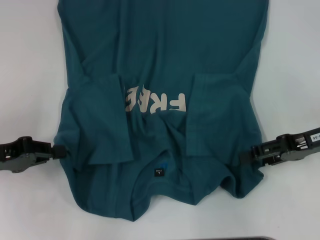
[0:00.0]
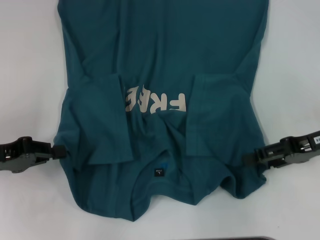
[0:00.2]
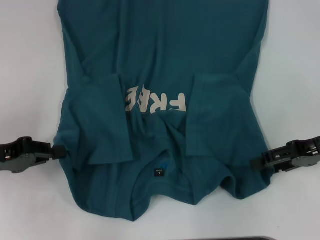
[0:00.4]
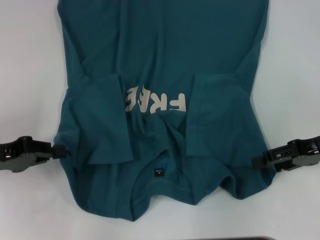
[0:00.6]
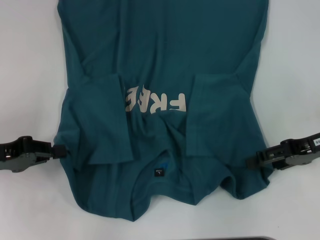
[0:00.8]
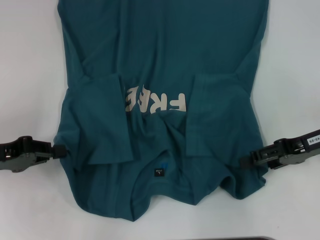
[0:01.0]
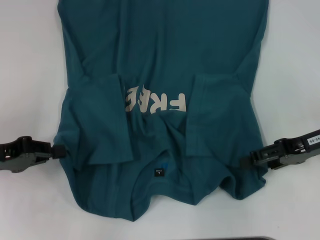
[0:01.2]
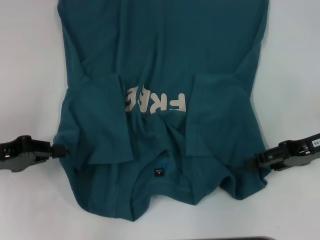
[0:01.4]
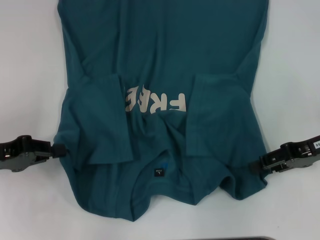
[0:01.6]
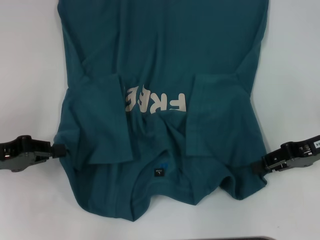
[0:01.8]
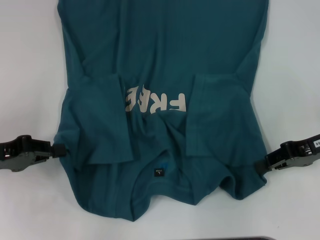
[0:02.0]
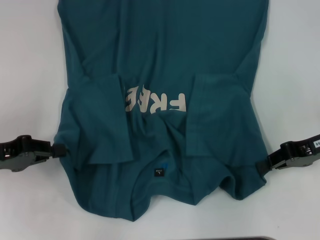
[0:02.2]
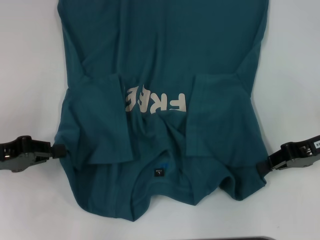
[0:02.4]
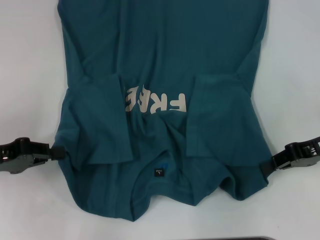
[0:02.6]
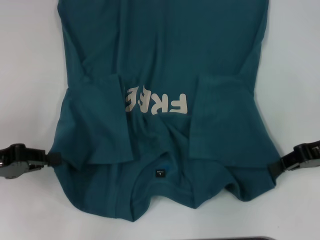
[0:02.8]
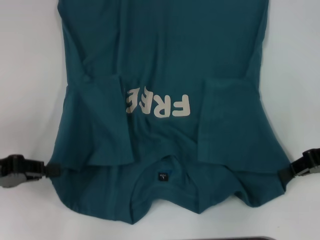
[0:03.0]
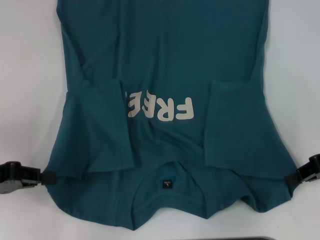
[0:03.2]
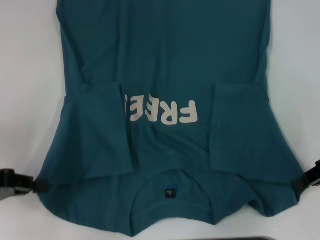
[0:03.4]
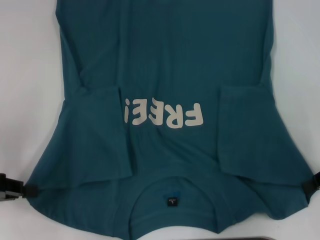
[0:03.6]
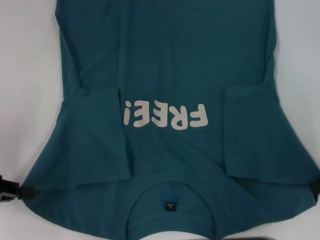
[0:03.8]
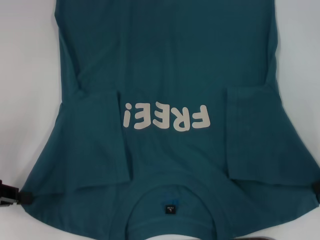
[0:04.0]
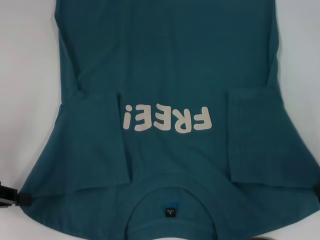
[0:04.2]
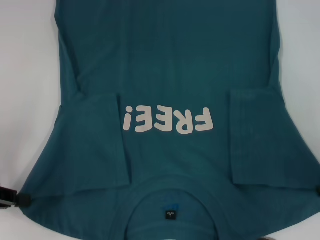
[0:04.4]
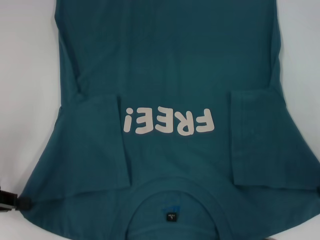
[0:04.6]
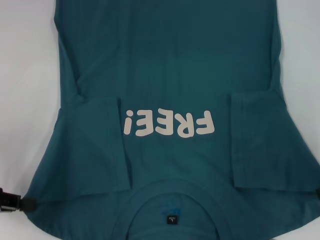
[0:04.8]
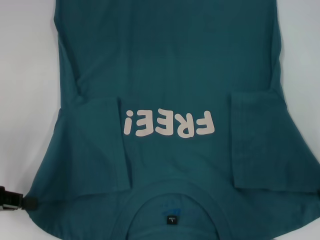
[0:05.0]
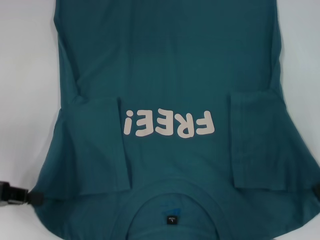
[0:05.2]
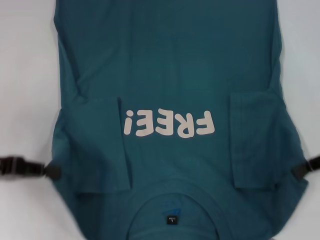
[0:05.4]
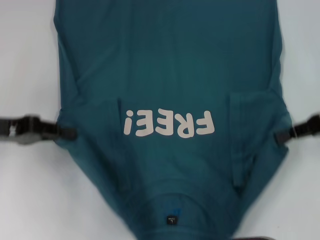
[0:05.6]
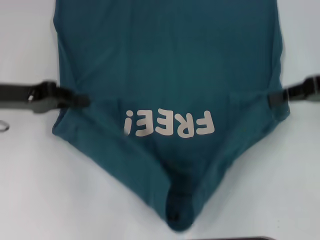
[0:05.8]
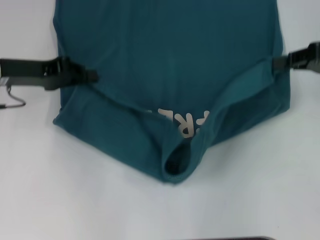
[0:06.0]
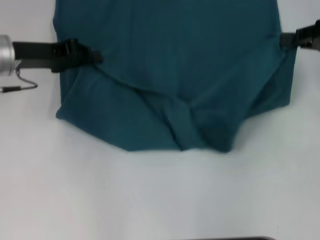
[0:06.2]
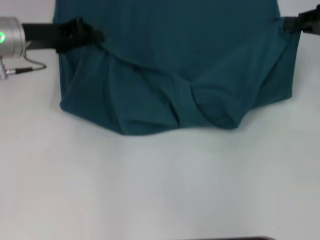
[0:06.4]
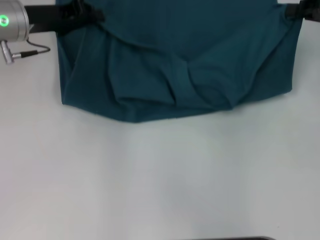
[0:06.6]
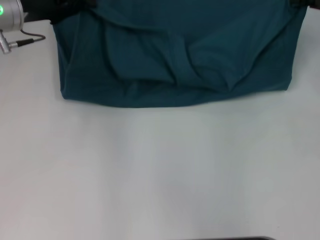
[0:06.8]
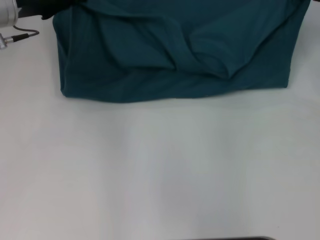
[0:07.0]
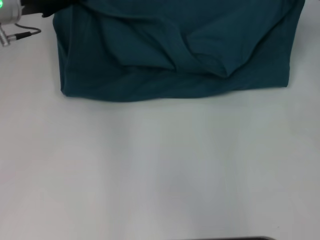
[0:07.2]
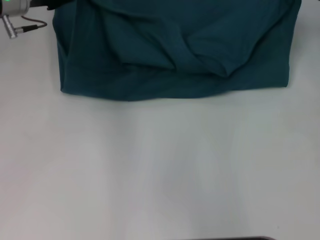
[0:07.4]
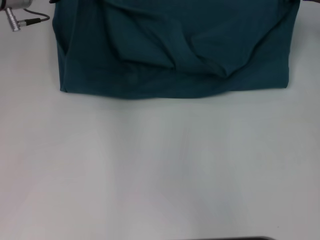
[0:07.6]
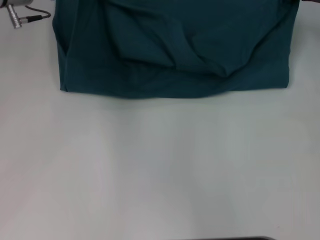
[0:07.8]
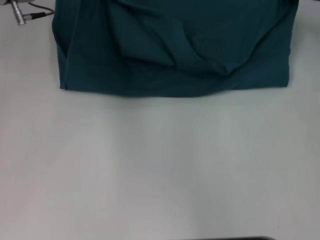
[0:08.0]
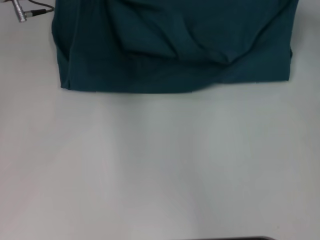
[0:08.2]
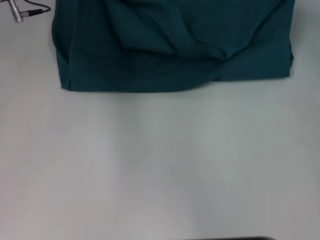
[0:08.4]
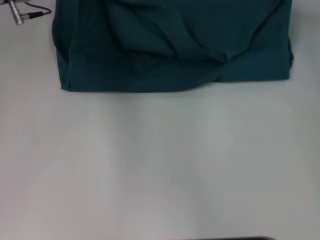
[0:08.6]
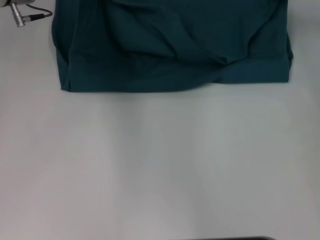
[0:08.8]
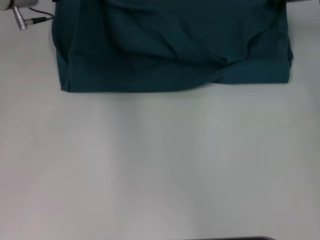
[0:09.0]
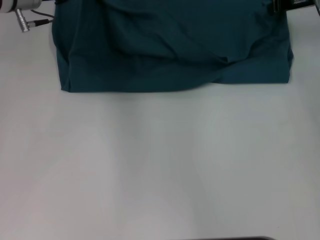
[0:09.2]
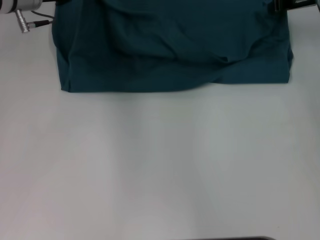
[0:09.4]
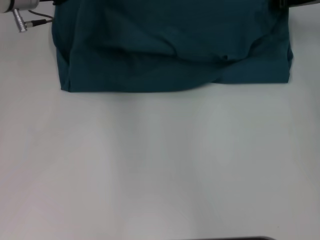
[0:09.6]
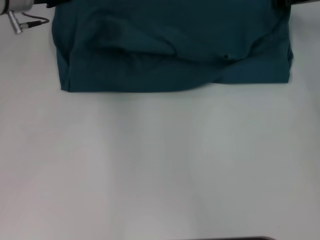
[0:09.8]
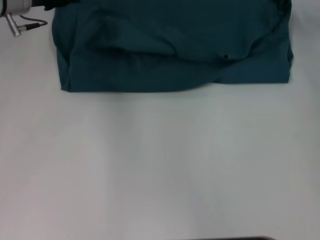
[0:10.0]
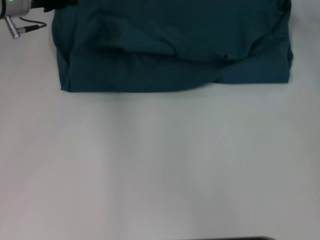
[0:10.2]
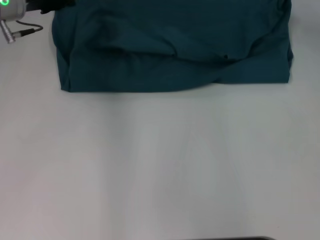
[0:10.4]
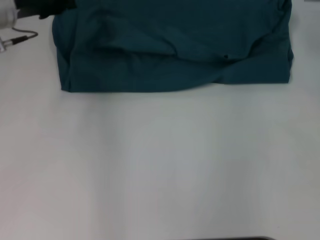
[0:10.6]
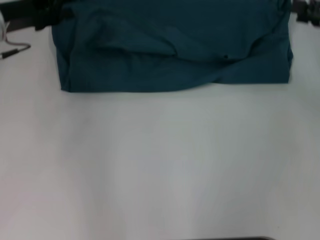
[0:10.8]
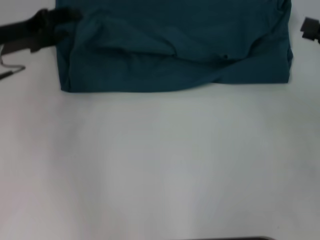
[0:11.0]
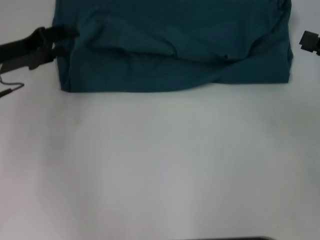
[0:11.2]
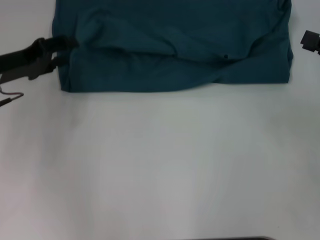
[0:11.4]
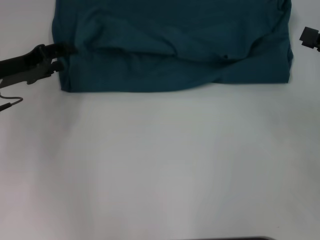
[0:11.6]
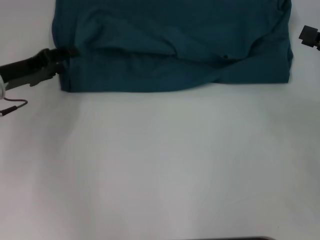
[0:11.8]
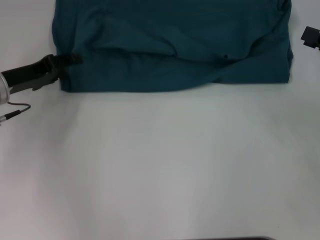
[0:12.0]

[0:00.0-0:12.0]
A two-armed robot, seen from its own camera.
Step, 0:00.0 to 0:02.4: Grab the bottom right corner with your right hand.
Step, 0:02.6 to 0:10.2: Fold the clothes to the left.
Step, 0:02.6 to 0:10.2: Fold the clothes to the right.
0:00.0 to 0:01.6: The grippers stay close to where they were, moving slightly.
0:01.6 to 0:03.0: The right gripper closes its fingers.
0:04.4 to 0:06.0: The right gripper travels forward and upward by approximately 10 cm; the left gripper travels forward and to the right by some 15 cm.
0:06.0 to 0:07.6: Both grippers move forward, about 10 cm.
0:07.6 to 0:09.0: The right gripper changes place by about 5 cm.
0:09.0 to 0:10.4: The left gripper opens up.
0:10.4 to 0:12.0: The right gripper shifts some 15 cm backward, downward and to the right. Meanwhile the left gripper travels backward and downward by about 10 cm.

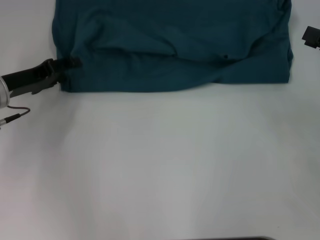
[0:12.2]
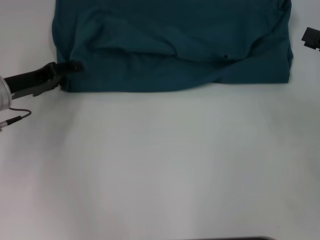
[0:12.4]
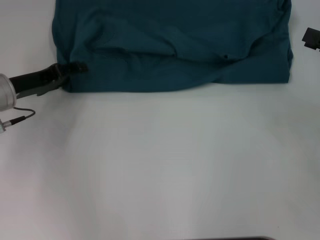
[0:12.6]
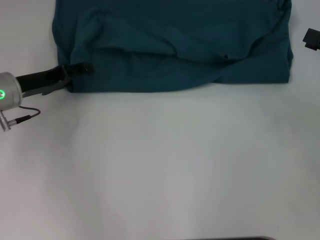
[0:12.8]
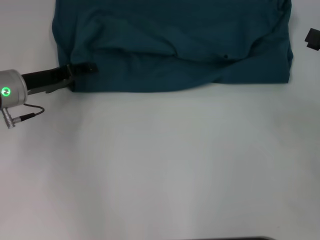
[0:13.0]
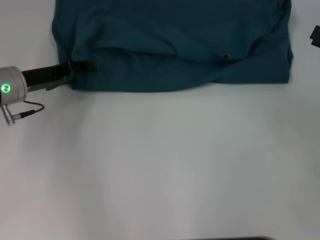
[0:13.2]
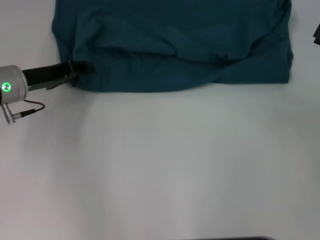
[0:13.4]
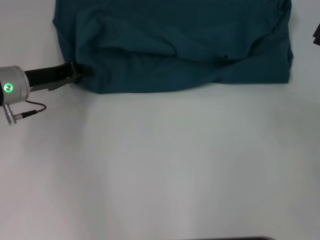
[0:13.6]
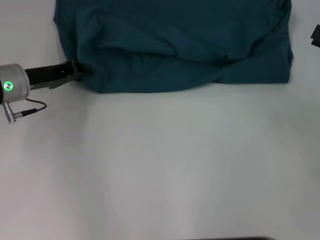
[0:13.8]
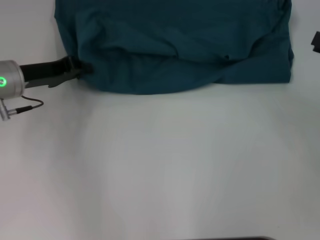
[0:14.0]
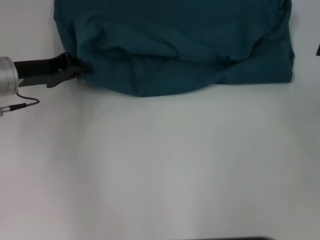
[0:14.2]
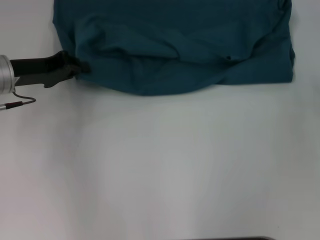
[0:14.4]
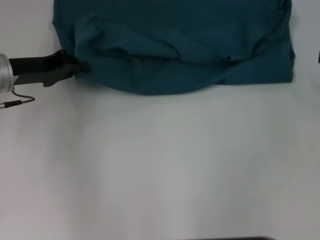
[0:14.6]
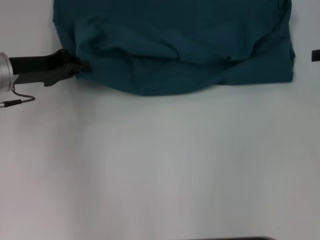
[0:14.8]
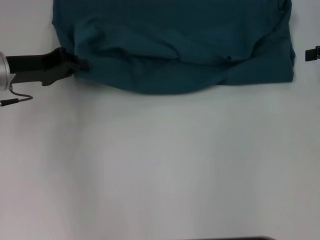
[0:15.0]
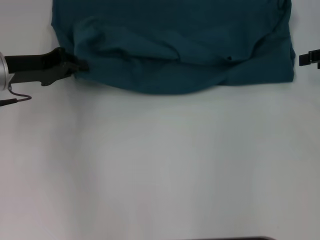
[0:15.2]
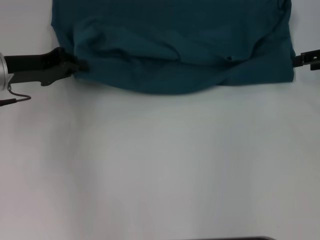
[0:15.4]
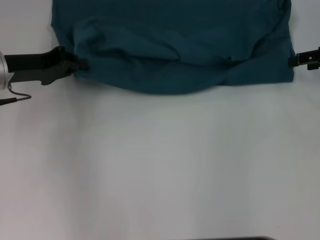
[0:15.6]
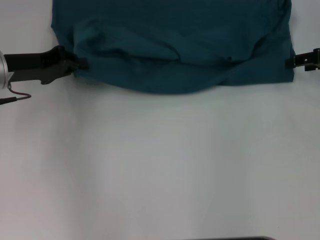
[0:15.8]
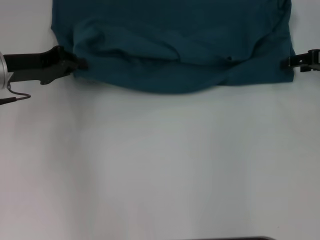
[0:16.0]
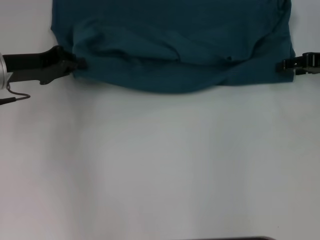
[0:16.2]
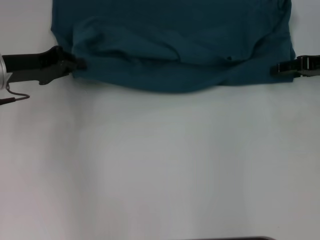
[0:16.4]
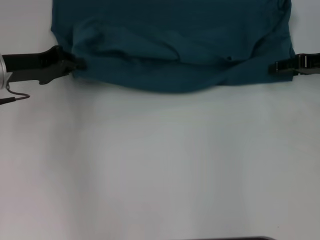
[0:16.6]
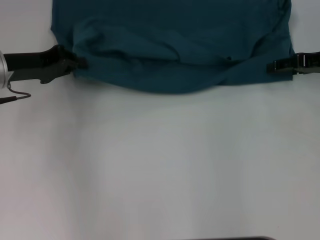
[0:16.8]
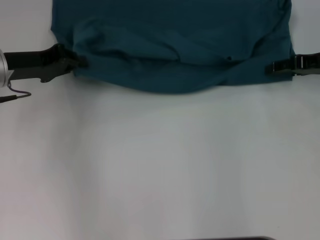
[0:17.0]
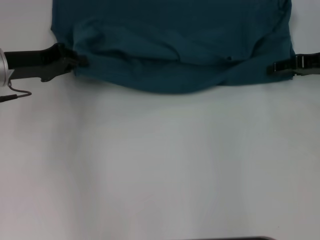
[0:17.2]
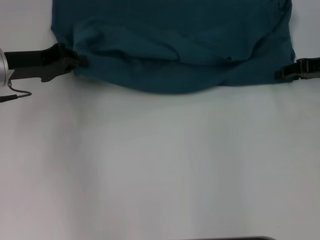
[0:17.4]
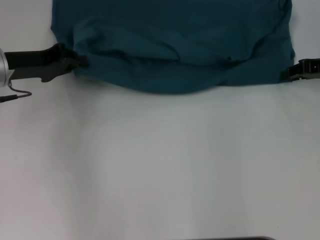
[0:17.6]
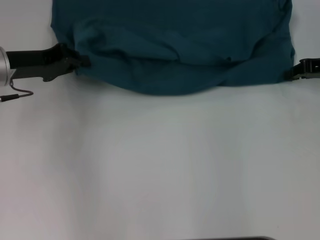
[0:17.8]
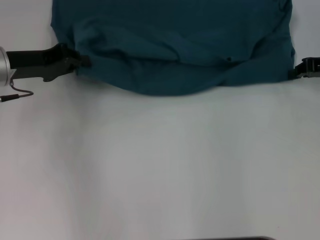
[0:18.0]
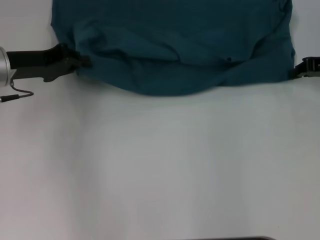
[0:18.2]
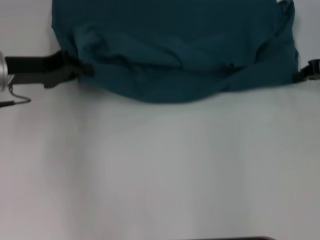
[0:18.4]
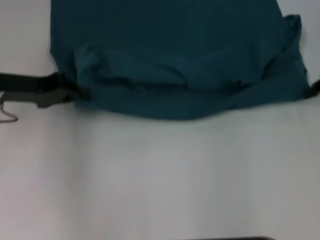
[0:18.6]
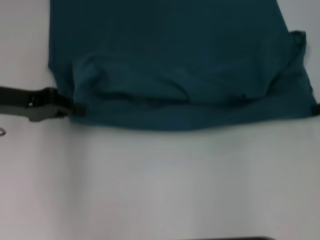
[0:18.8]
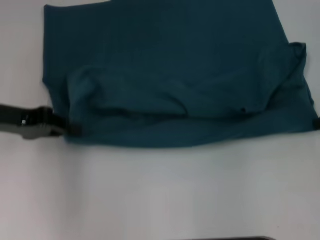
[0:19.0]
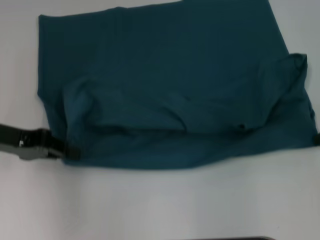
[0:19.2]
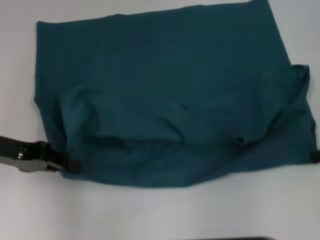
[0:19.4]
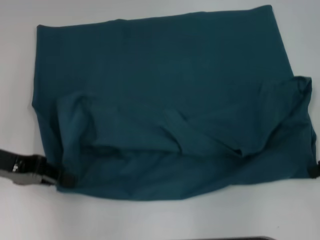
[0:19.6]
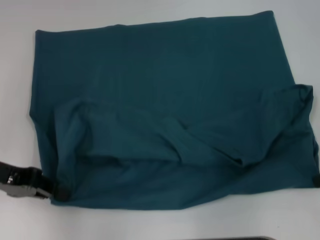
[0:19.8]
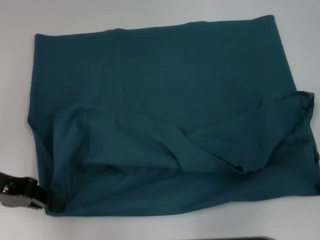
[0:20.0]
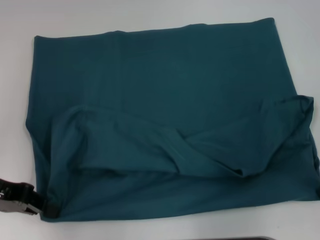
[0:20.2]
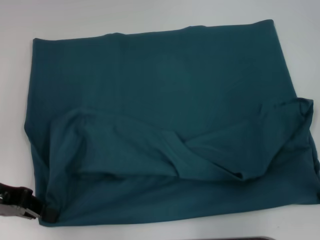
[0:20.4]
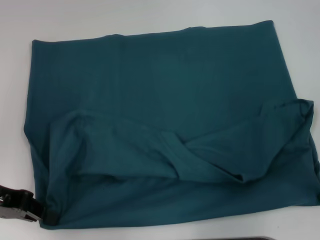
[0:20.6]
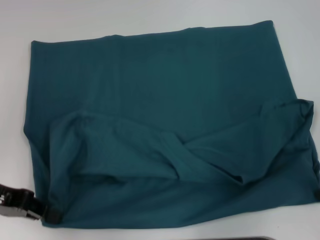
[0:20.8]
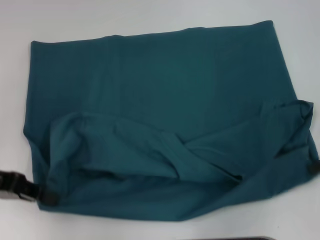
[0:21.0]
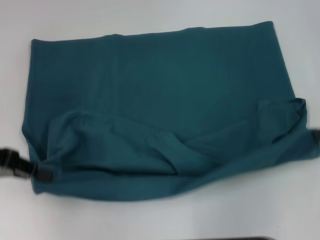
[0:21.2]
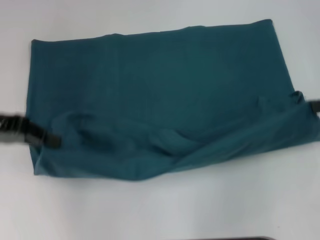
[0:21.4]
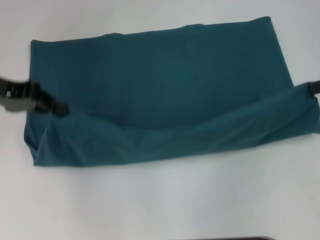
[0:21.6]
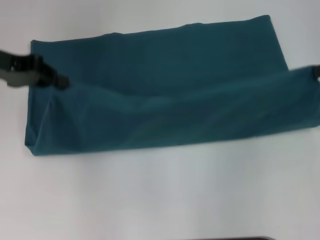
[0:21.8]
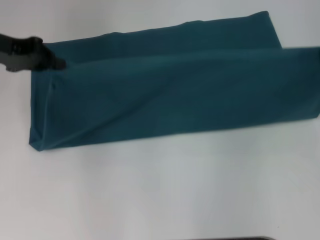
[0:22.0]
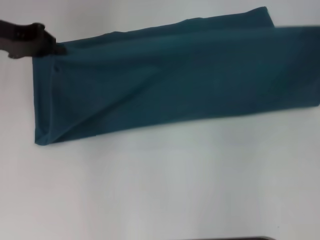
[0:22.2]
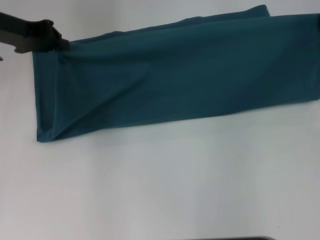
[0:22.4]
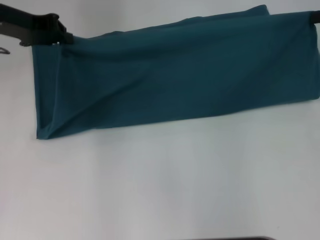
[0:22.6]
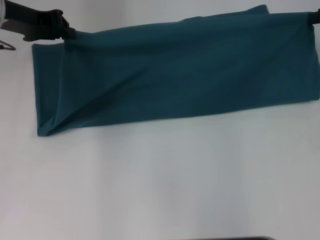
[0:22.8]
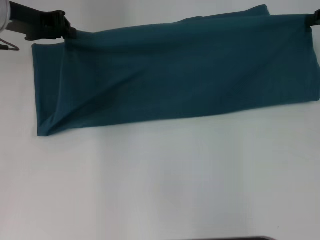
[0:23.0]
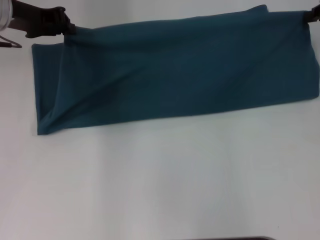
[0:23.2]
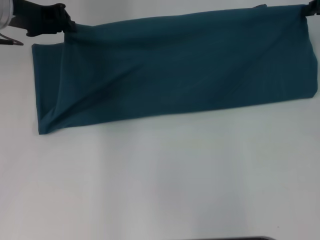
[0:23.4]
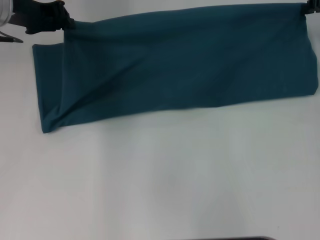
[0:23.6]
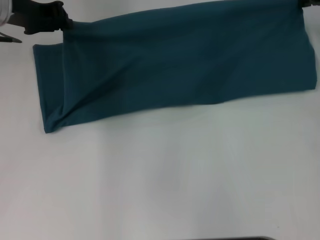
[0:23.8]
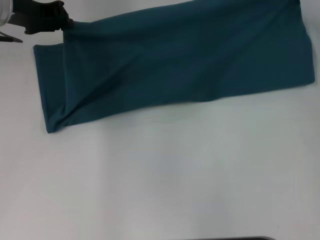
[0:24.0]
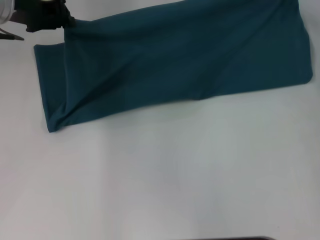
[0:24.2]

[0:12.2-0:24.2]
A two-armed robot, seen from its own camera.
Step, 0:12.2 to 0:20.0: Pull the clothes with your left hand.
Step, 0:12.2 to 0:20.0: Pull the clothes with your right hand.
0:12.2 to 0:13.8: The left gripper closes its fingers.
0:13.8 to 0:15.2: The right gripper goes about 10 cm forward.
0:15.2 to 0:16.6: The right gripper changes place by about 5 cm.
0:16.6 to 0:18.2: The right gripper closes its fingers.
0:18.2 to 0:19.8: Both grippers travel together backward, some 10 cm.
0:21.2 to 0:22.6: The left gripper goes about 15 cm forward and to the right, while the right gripper goes about 10 cm forward.
0:22.6 to 0:24.2: The right gripper heads forward and to the left, covering about 10 cm.
